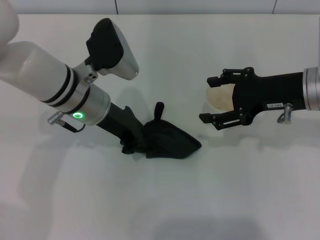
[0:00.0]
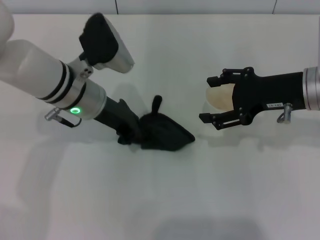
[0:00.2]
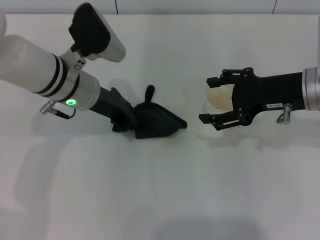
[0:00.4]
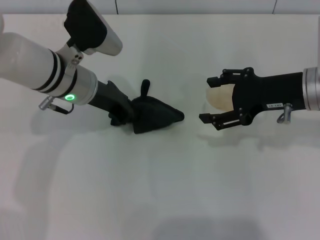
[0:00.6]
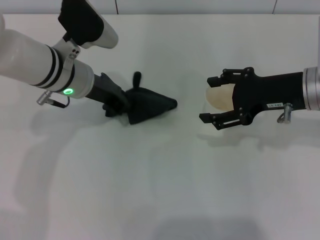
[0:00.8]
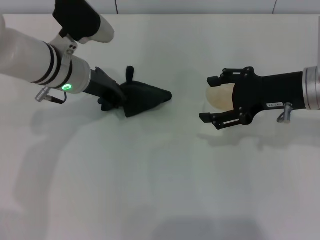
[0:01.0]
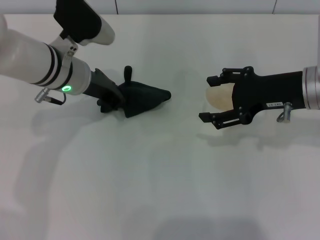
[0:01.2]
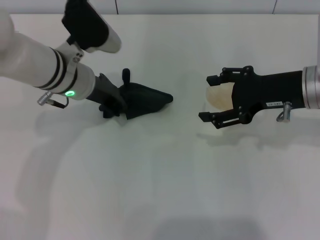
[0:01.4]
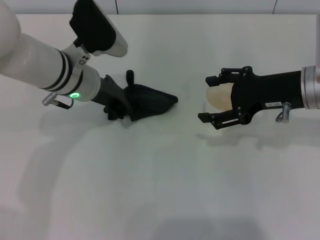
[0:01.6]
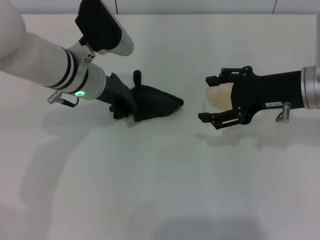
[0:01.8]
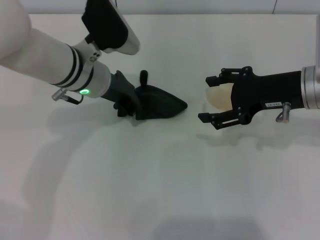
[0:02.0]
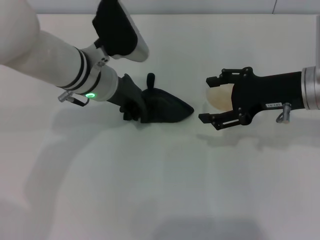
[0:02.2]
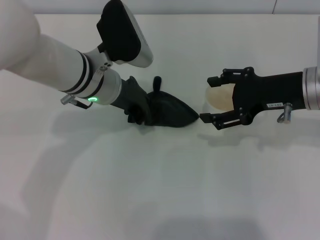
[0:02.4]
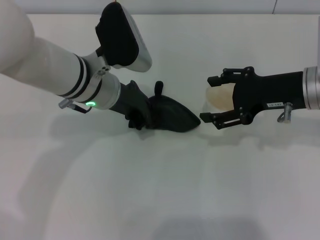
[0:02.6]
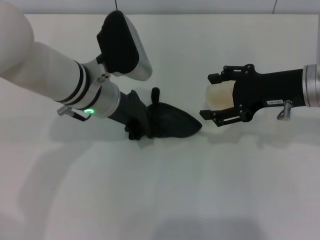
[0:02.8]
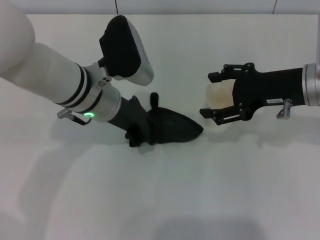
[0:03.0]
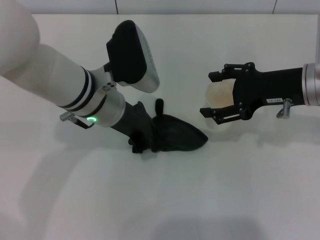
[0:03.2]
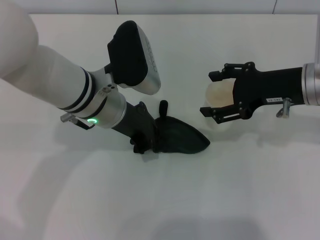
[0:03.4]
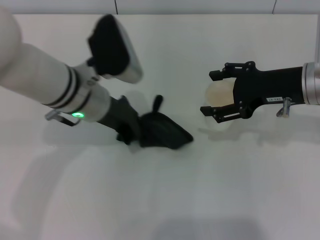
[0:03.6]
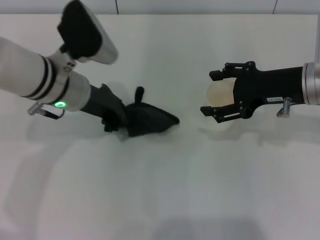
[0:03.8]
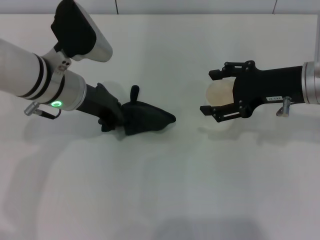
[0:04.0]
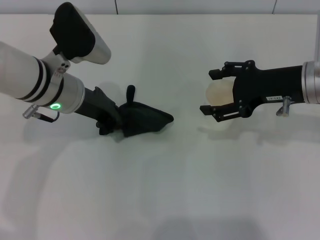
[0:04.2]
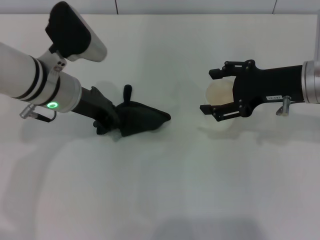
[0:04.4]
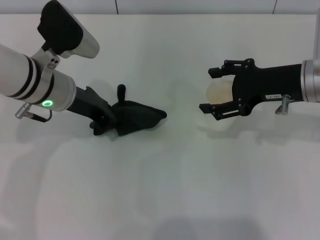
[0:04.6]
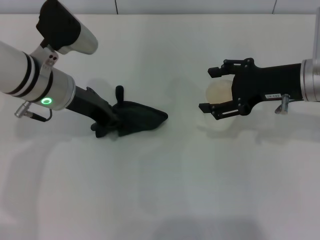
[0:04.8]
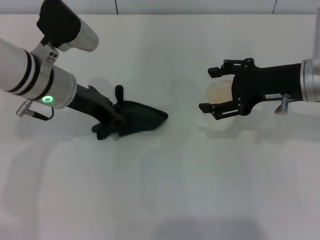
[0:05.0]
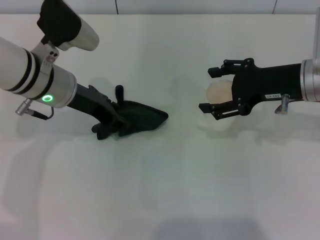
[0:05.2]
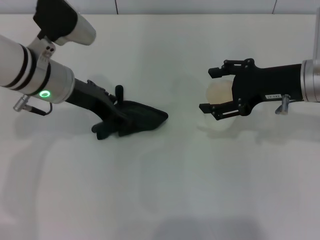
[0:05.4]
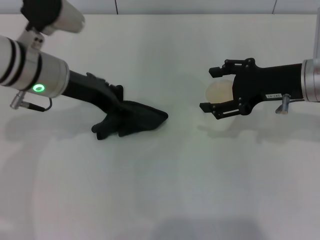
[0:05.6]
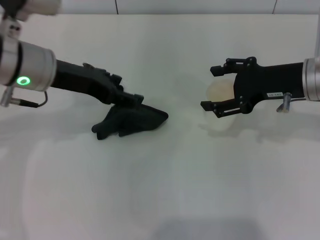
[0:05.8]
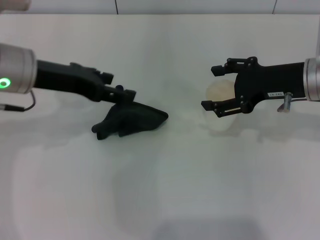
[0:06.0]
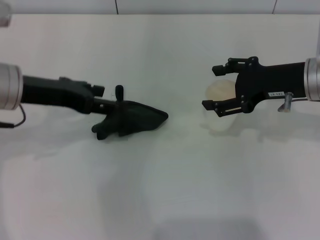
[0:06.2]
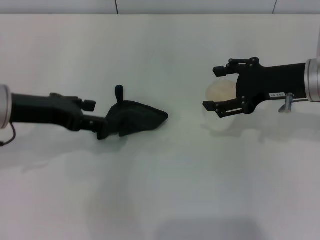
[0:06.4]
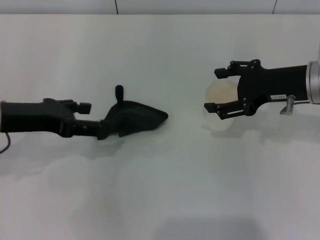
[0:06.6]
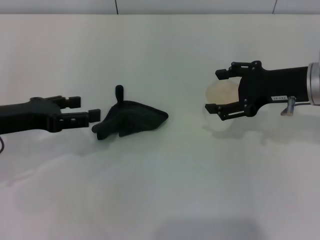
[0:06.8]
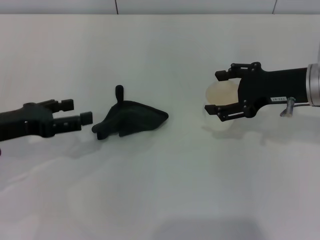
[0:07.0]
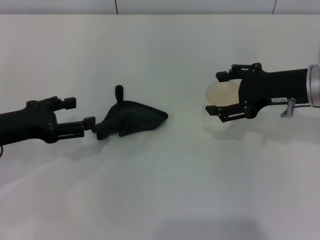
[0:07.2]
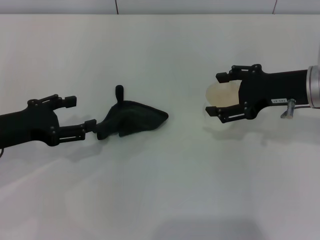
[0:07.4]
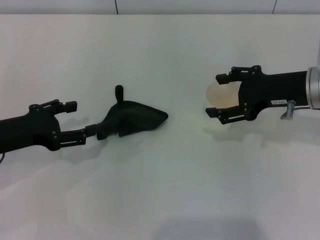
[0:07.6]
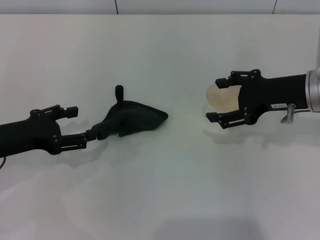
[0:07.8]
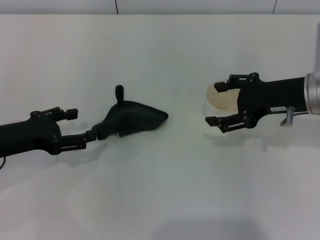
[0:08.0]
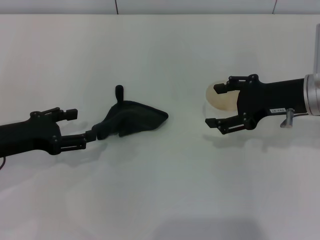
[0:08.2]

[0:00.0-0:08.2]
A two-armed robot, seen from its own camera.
Step, 0:00.0 to 0:04.0: Wipe the stains off the table with the left gripper.
Step, 0:04.2 to 0:06.4: Place the rag on the table with the left gripper.
0:01.6 to 0:03.2: The left gripper changes place by about 5 cm.
0:03.2 to 0:05.0: The left gripper shifts some 5 cm to the left.
0:05.0 to 0:06.6: The left gripper heads to the left and backward, covering roughly 10 cm, and opens its fingers.
0:06.6 to 0:08.2: The left gripper moves downward, about 5 cm.
